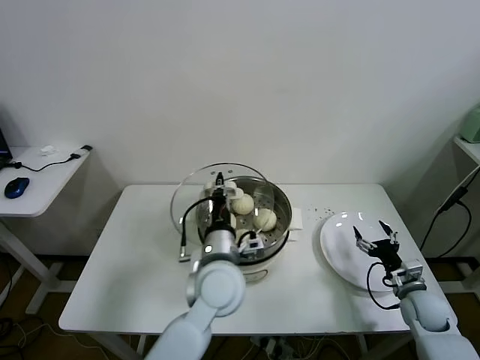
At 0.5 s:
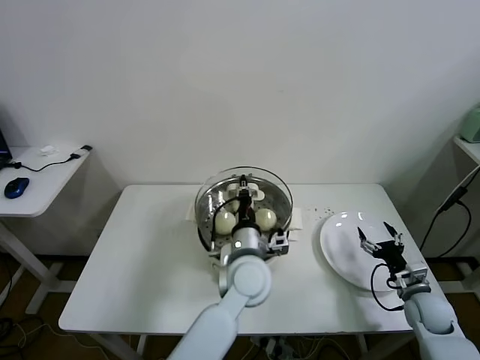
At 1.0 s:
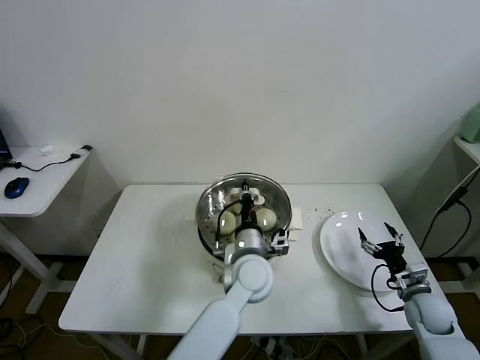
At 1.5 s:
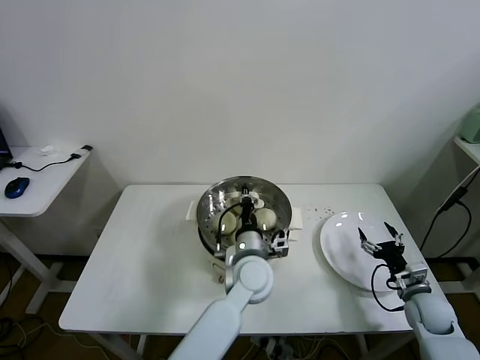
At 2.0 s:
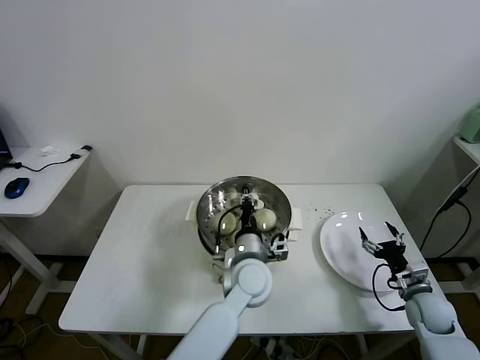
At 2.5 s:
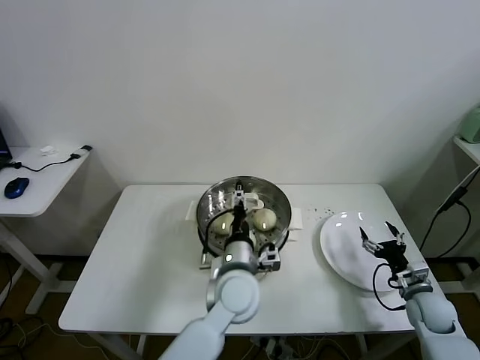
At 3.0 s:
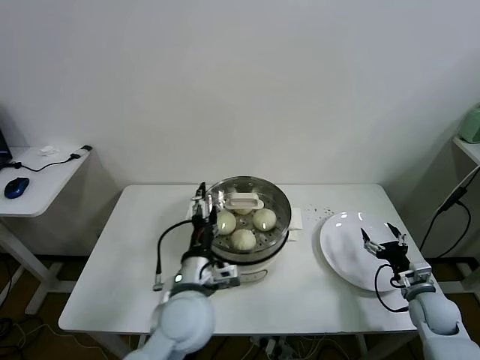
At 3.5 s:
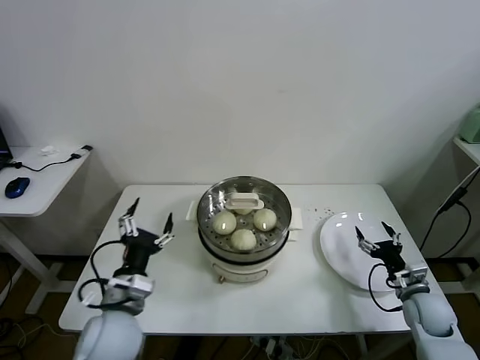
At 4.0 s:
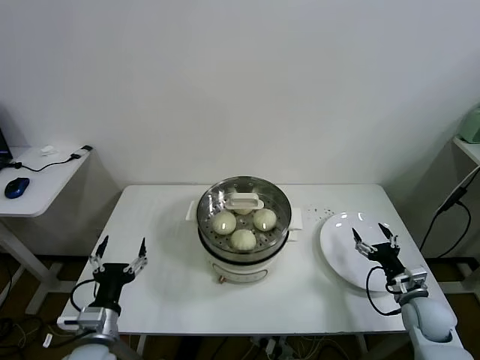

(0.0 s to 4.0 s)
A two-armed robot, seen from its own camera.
Task of the whole recording: take steamed baozi put them in steamer.
Step, 0.0 s - 2.0 s: Place the pot lid on the steamer with left gripper.
0.0 s - 2.0 s: The left gripper travels to the right and downward by some 10 cm.
2.0 s - 4.0 s: The left gripper travels to the left and backward by some 35 cm, and opens its fingers.
